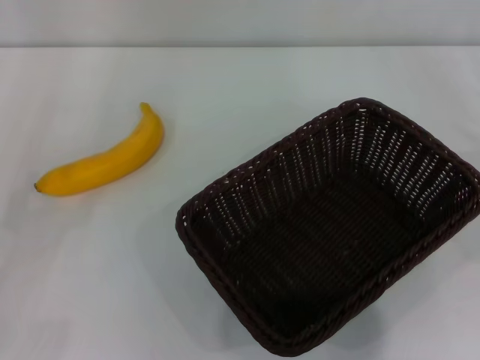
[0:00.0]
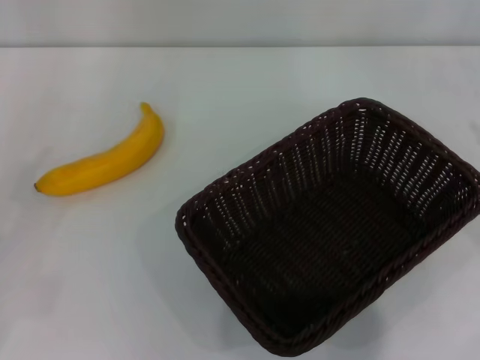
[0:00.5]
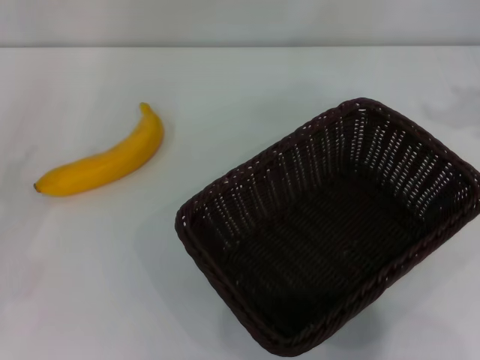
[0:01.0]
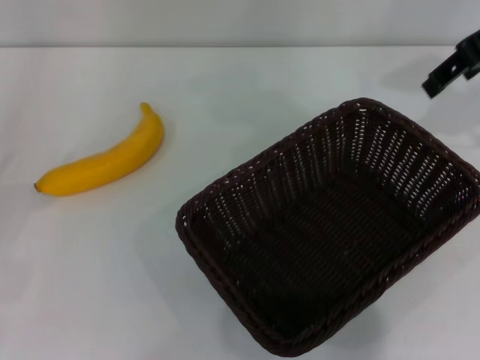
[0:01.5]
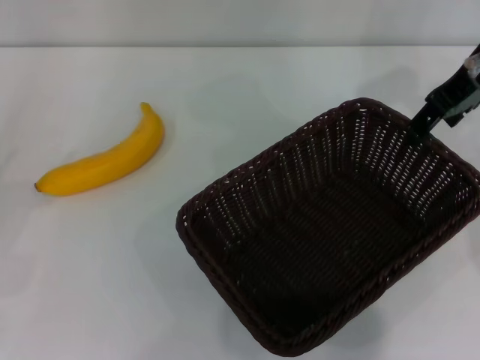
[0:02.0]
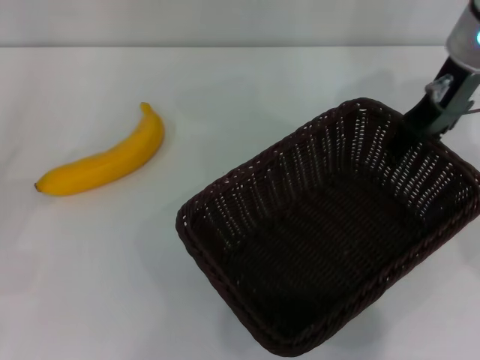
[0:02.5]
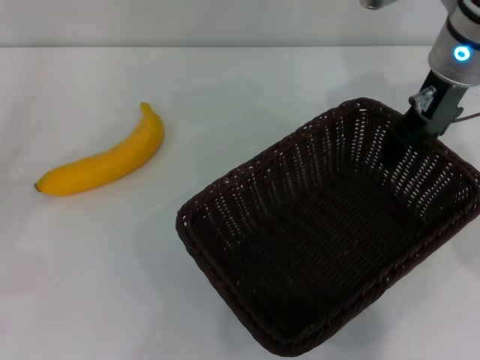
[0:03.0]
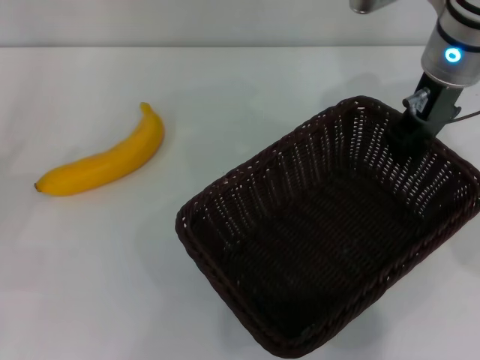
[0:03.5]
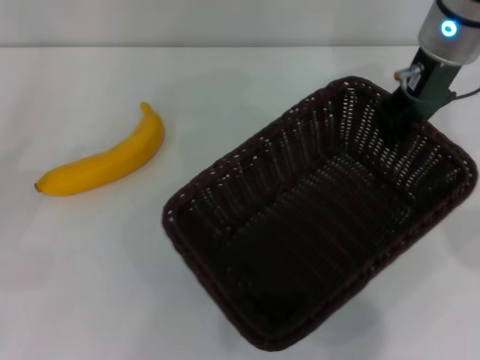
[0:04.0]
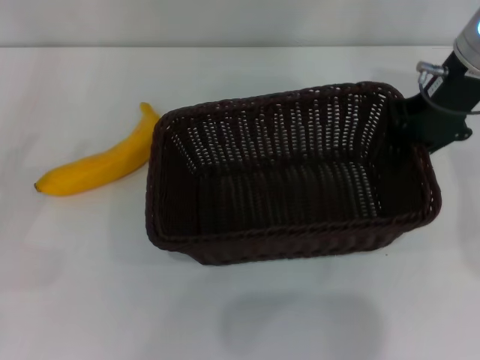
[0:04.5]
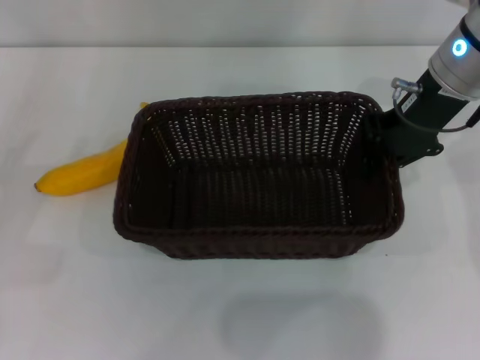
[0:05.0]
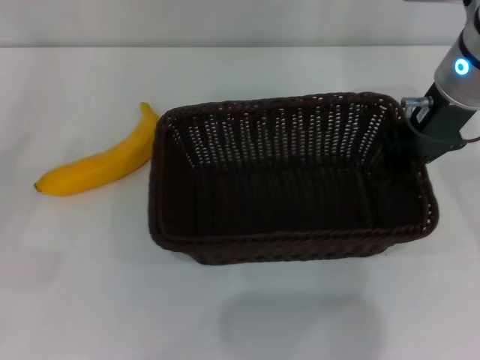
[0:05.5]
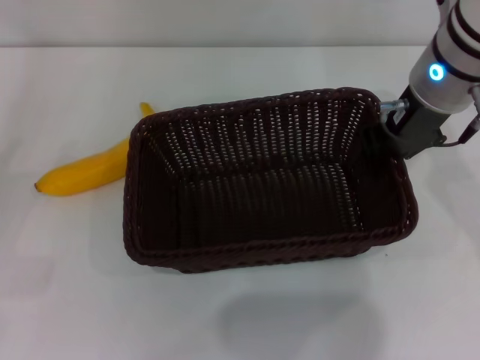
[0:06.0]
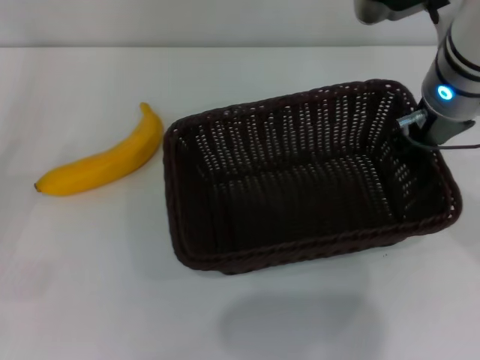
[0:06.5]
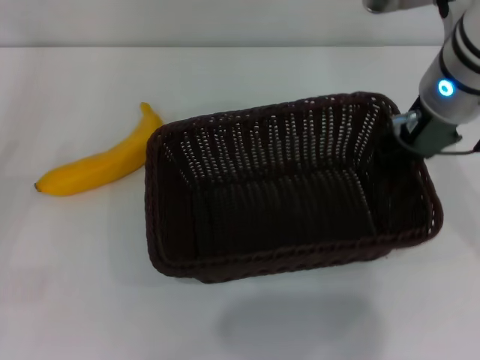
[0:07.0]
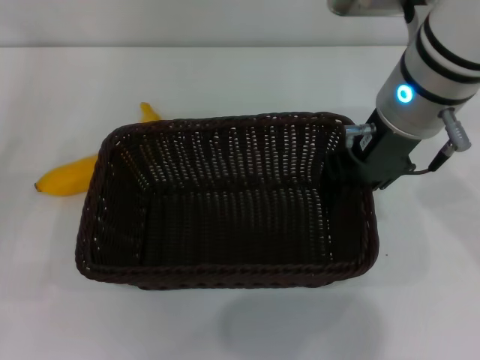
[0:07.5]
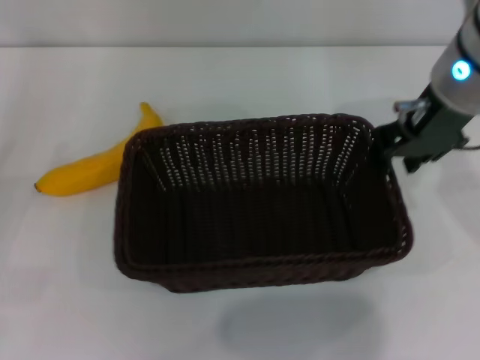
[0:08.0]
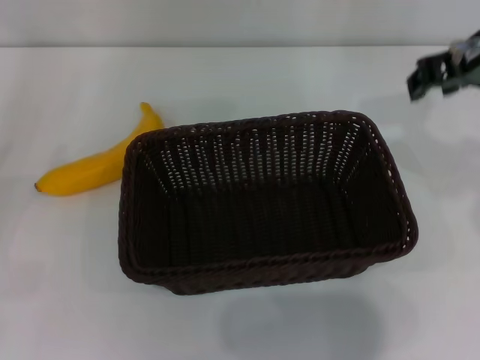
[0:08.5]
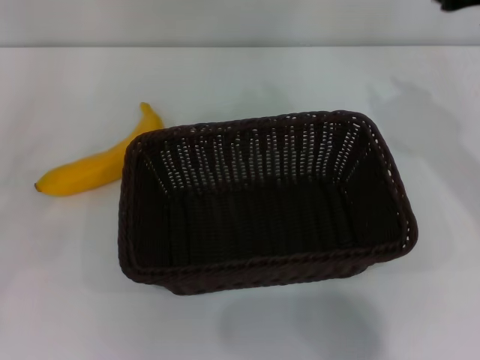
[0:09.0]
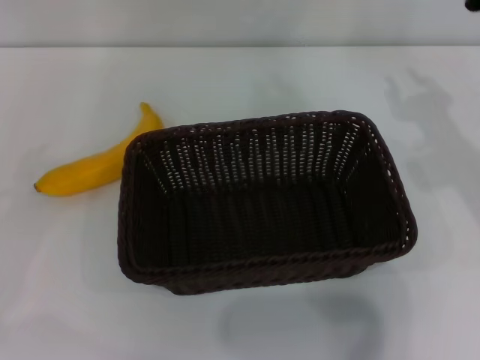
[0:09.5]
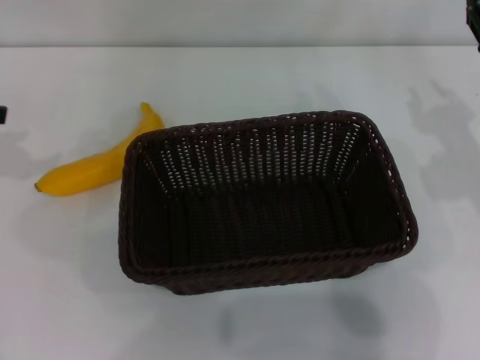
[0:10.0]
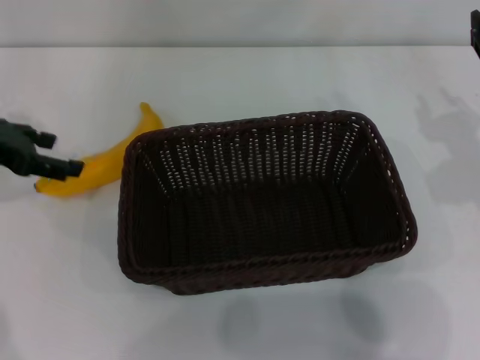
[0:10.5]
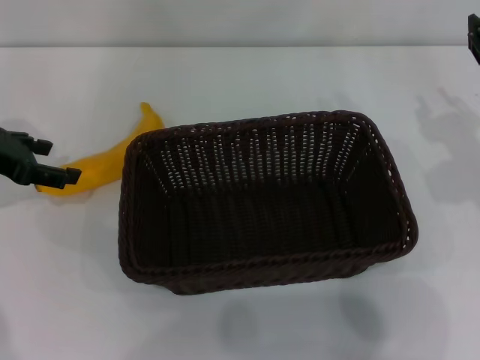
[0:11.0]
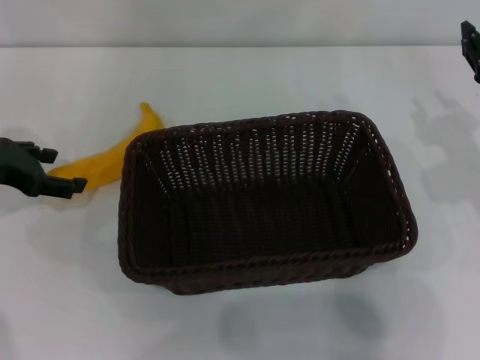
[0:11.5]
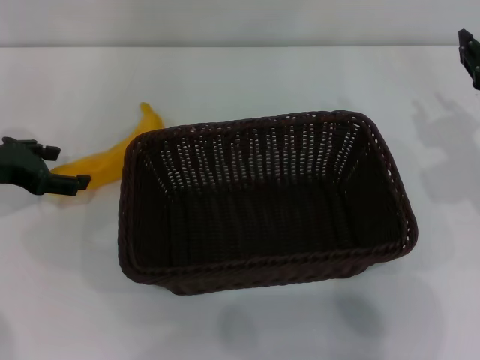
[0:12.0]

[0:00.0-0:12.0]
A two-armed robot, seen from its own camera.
Step, 0:00.0 to 0:04.0: Pick up the dark basket with the right gripper.
Step, 0:04.5 to 0:08.0: Place the dark basket in the center of view with the right gripper.
0:00.0 to 0:02.0: The right gripper is displaced to the left, forward and upward by some 30 cm.
0:02.0 to 0:04.0: The right gripper shifts some 5 cm to the left, and closes its fingers.
0:04.0 to 0:06.0: The right gripper moves backward, about 5 cm.
0:06.0 to 0:08.0: The right gripper opens its fingers.
0:08.0 to 0:10.0: The left gripper goes about 15 cm forward, upward and to the right. Meanwhile the right gripper heads to the right and downward, covering roughly 15 cm.
0:10.0 to 0:12.0: The left gripper heads downward and to the right, covering some 10 cm.

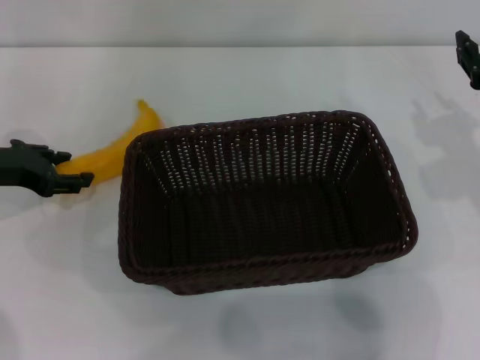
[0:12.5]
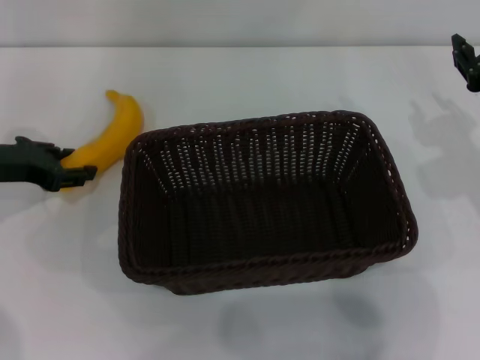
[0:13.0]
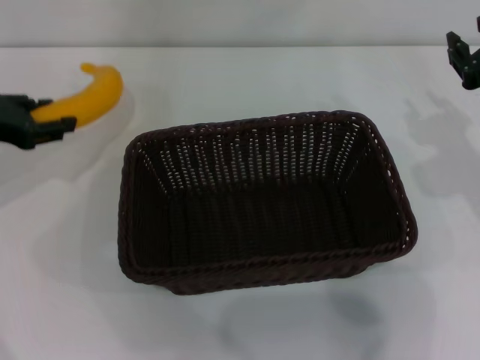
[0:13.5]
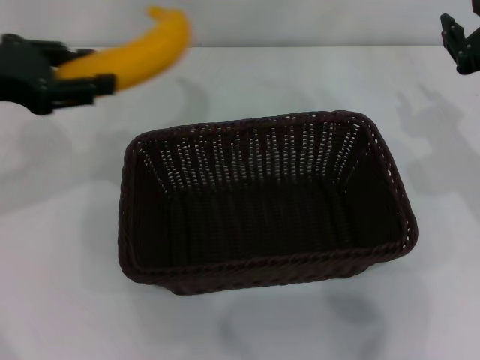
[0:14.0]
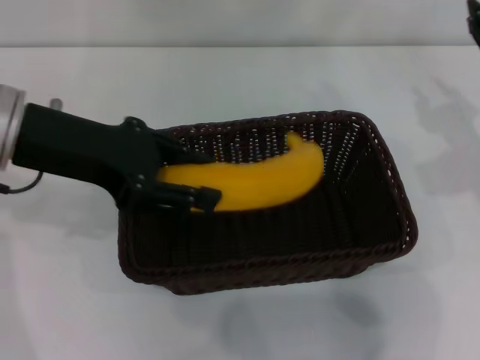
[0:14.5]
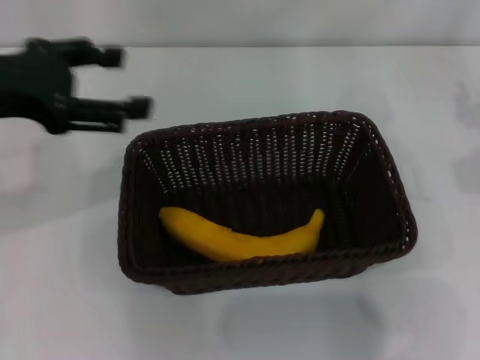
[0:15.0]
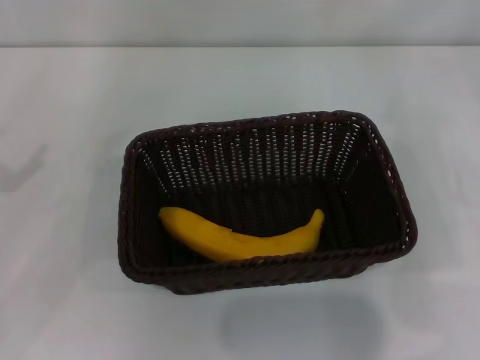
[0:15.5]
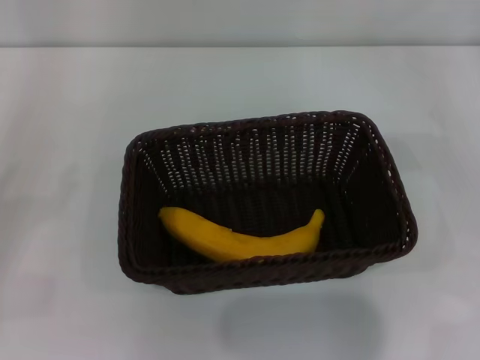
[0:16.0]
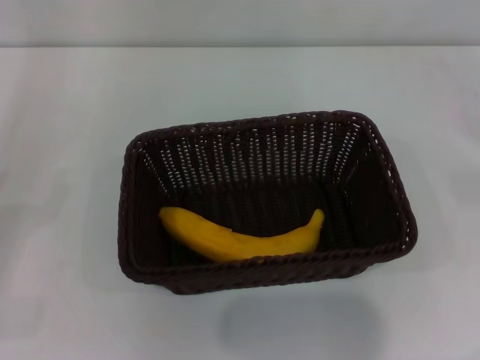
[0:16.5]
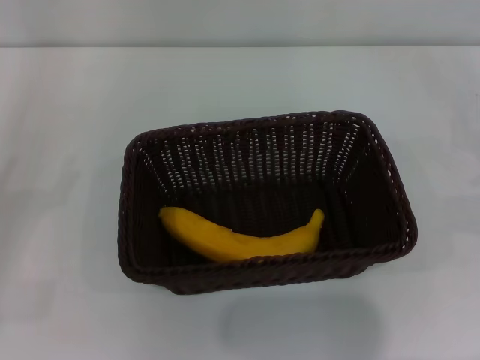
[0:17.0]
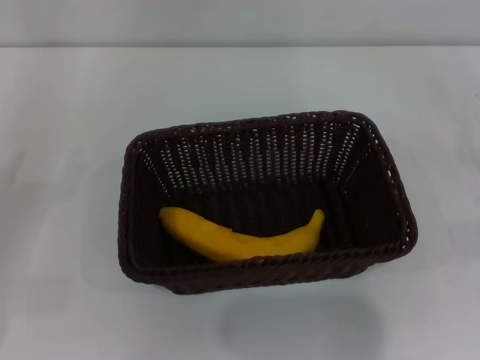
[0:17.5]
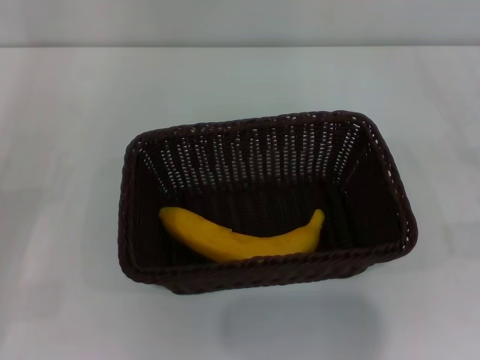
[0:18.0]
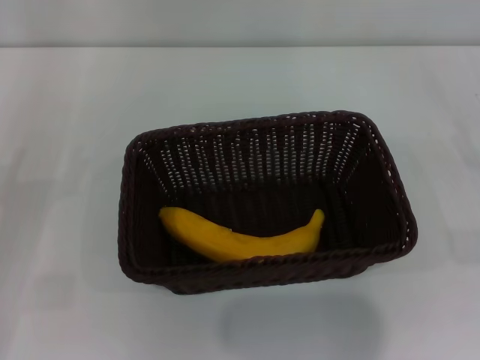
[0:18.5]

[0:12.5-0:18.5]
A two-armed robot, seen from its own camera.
Step, 0:14.0 to 0:14.5: Place the banana into the dark basket with the left gripper.
0:12.5 to 0:14.5: The left gripper is displaced upward and to the right by approximately 15 cm, and closes its fingers.
0:14.5 to 0:16.5: The right gripper heads to the right, covering approximately 20 cm; the left gripper moves to the left, backward and downward, roughly 30 cm, and opens its fingers.
